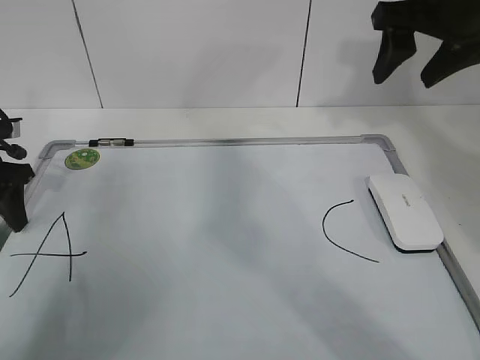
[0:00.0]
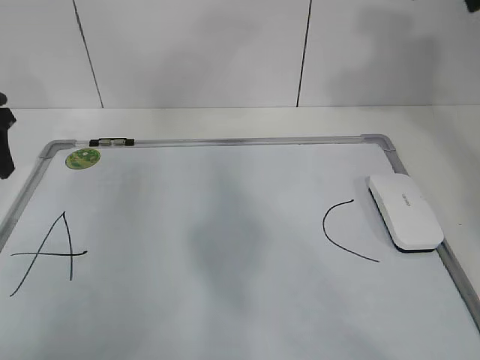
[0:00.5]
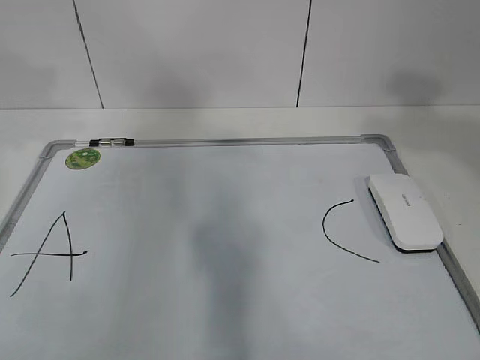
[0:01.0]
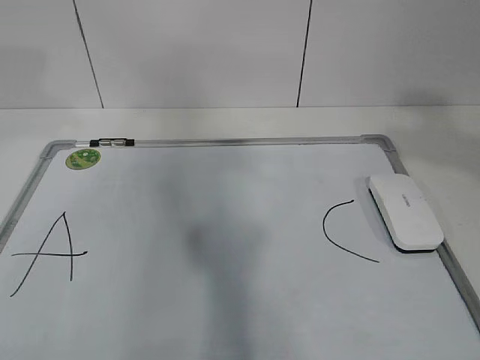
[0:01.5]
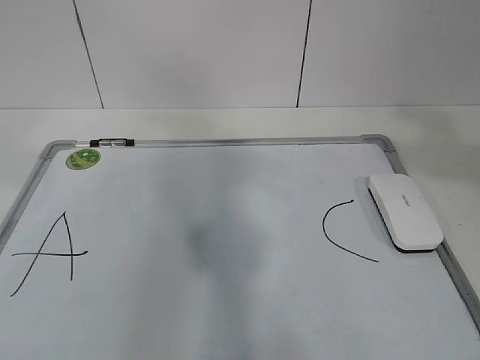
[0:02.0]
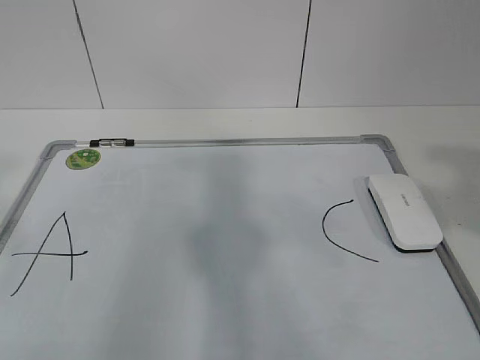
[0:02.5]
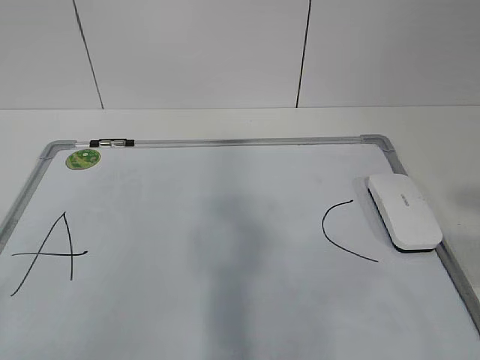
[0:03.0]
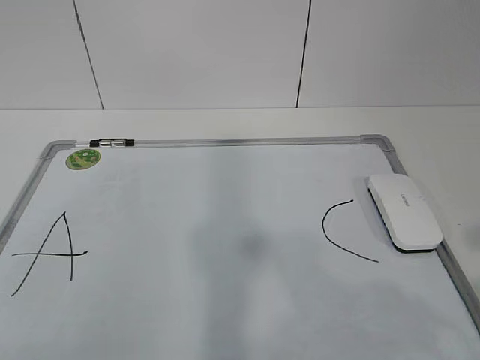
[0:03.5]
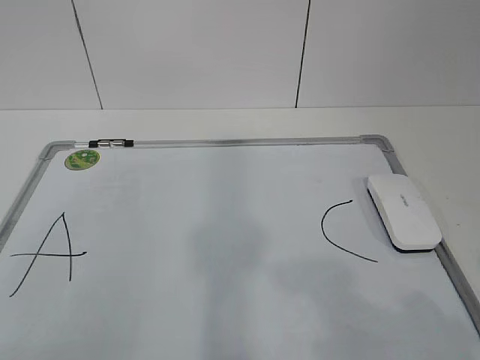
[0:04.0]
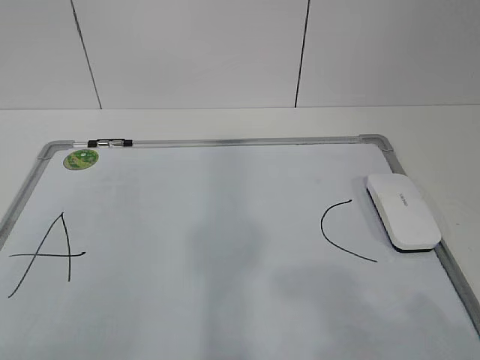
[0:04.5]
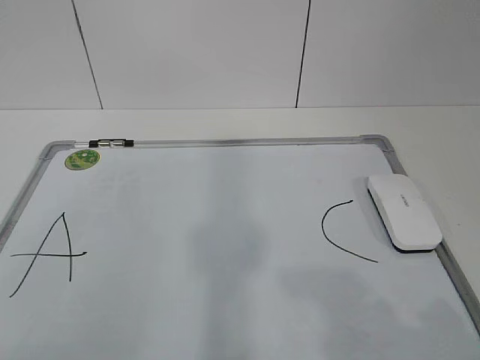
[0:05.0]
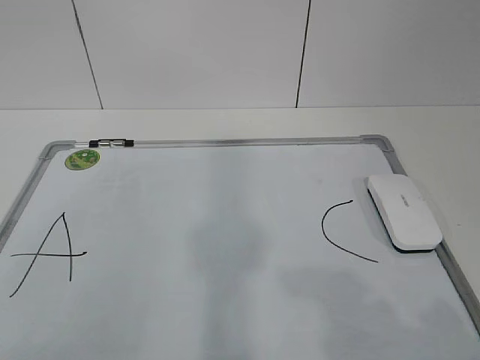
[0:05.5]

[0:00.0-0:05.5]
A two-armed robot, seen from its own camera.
Task of the whole recording: pick up the eraser on the blackboard and erase the letter "B".
0:00.0 to 0:02.0: The left gripper is displaced upward and backward by some 35 cm. The right gripper heads backward, covering approximately 25 cm, and opens its fingers.
0:02.0 to 0:03.5: The right gripper goes approximately 15 cm downward and backward, and closes up. The left gripper moves backward and downward, about 20 cm.
